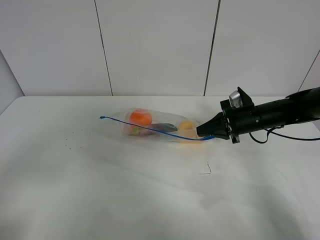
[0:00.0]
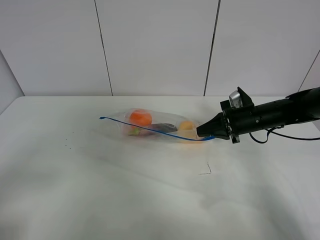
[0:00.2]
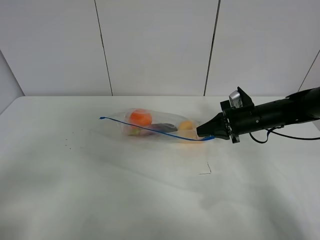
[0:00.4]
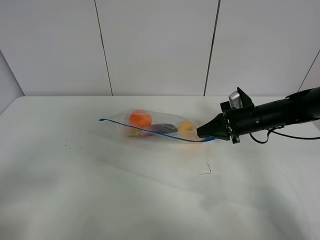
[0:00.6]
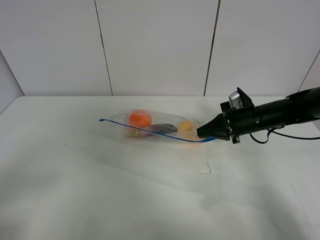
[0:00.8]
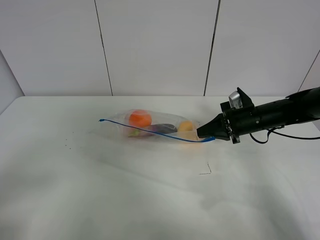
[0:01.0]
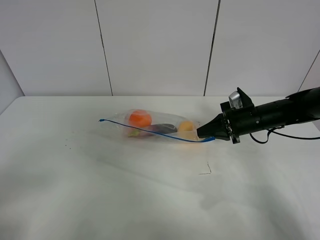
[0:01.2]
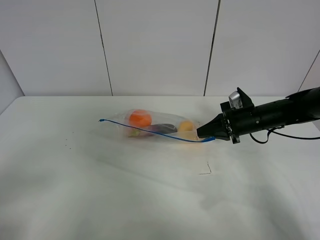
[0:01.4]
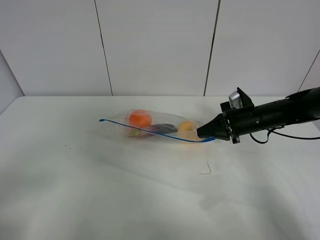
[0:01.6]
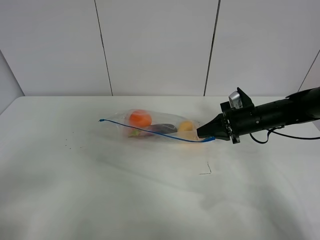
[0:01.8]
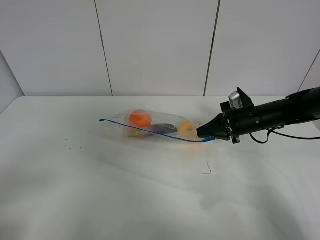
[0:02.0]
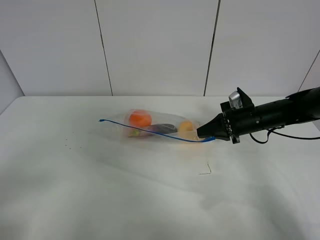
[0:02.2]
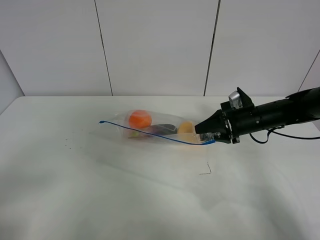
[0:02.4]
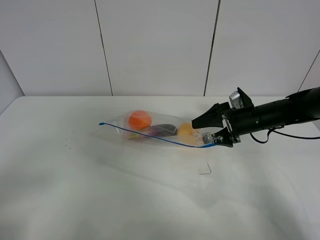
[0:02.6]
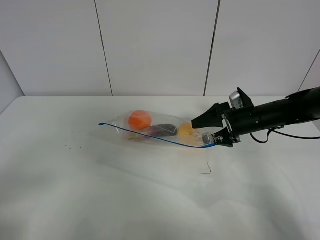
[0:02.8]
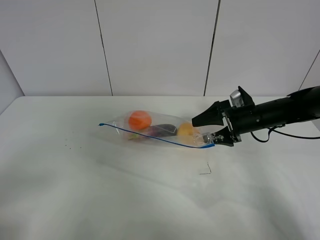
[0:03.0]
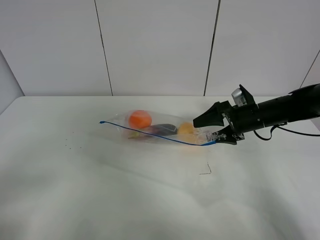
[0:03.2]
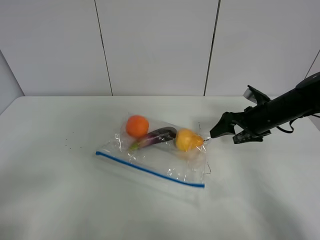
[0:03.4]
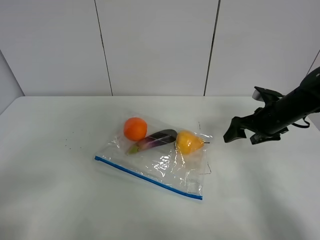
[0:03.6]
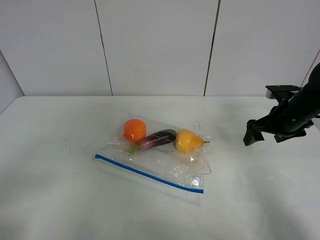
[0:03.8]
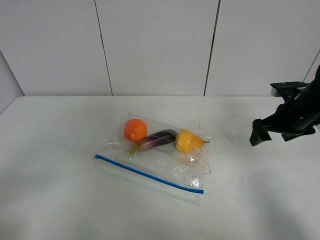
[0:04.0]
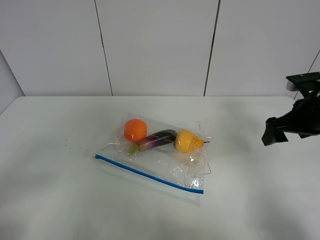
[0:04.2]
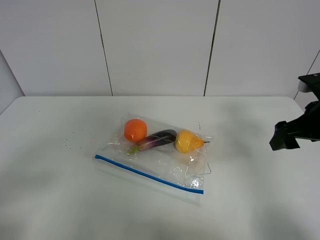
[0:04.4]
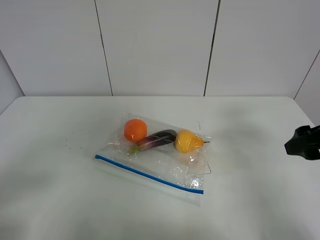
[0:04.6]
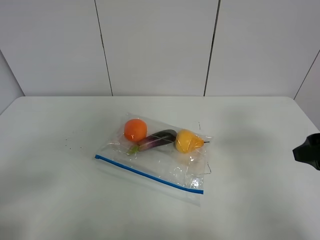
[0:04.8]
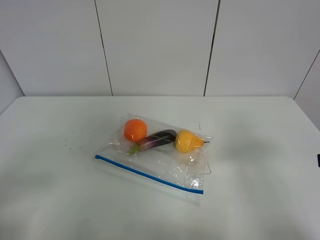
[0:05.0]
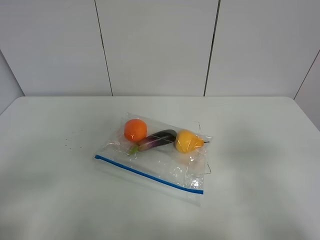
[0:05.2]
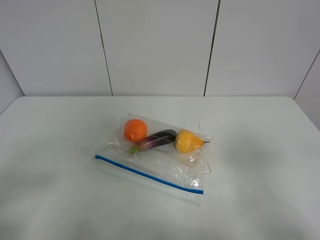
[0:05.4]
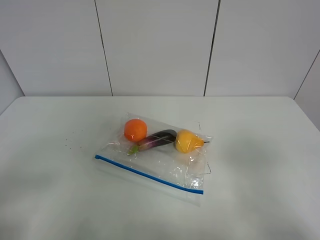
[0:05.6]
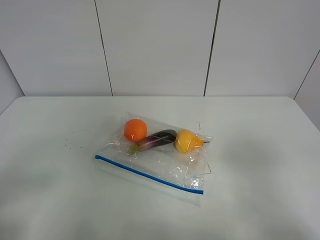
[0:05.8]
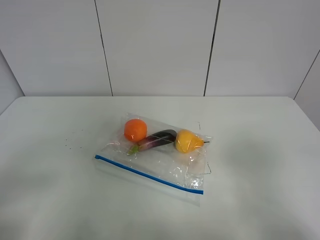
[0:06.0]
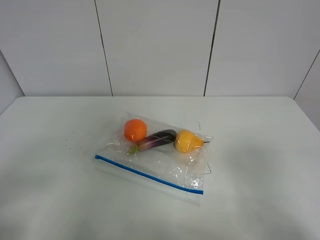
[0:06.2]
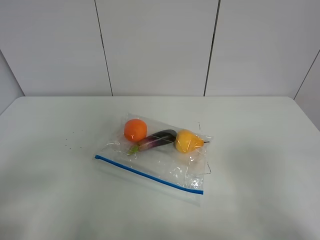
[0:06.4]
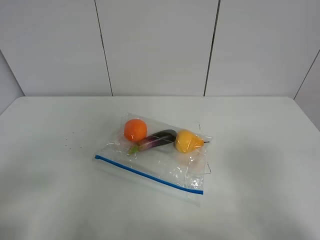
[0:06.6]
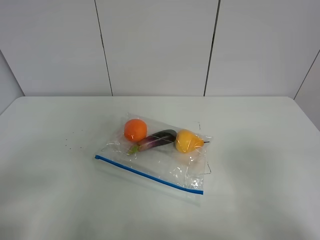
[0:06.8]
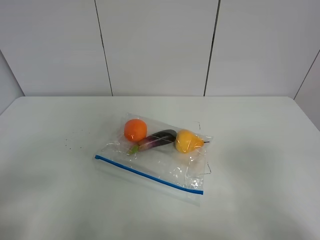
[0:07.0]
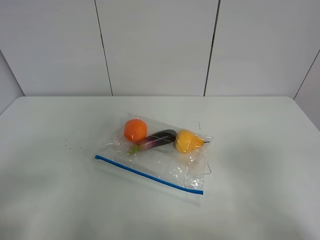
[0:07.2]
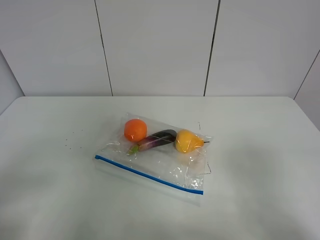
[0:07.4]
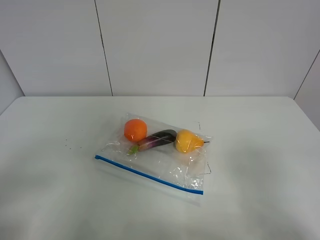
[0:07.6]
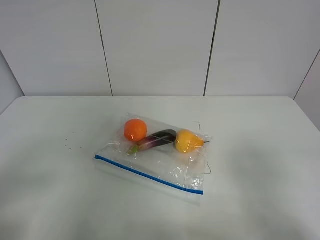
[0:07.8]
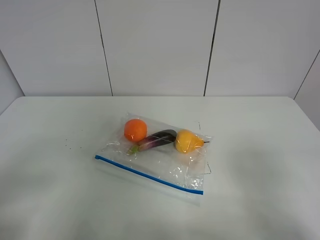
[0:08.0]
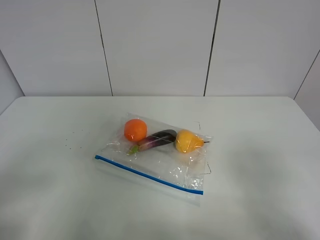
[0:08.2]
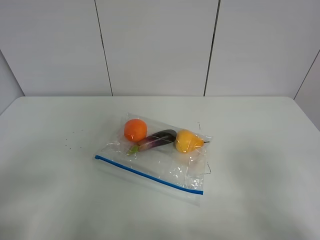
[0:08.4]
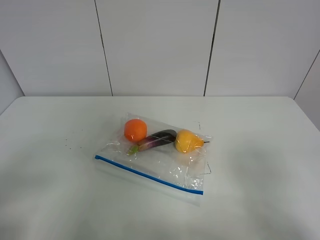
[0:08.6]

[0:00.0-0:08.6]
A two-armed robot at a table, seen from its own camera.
Step, 0:00.0 to 0:03.2: Place the fruit bag with right gripper.
0:00.0 to 0:01.4: The grippers move only a little.
0:01.4 to 0:02.8: The right gripper opens its fingers.
0:02.8 to 0:04.4: The right gripper goes about 15 cm backward, upward and to the right.
0:04.4 to 0:05.8: The right gripper goes roughly 20 cm backward.

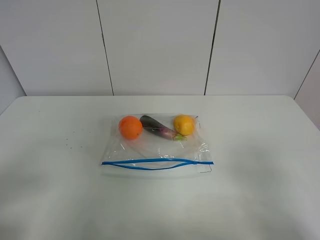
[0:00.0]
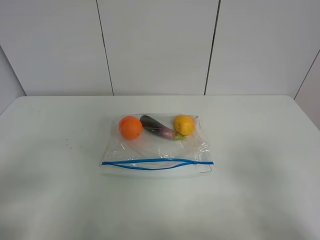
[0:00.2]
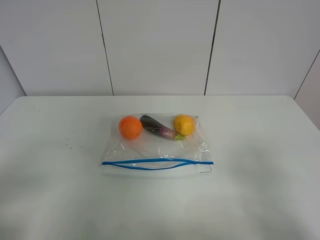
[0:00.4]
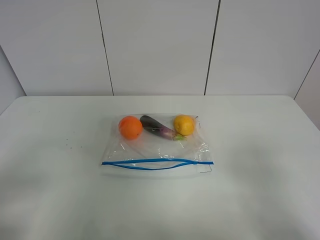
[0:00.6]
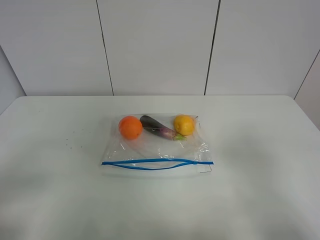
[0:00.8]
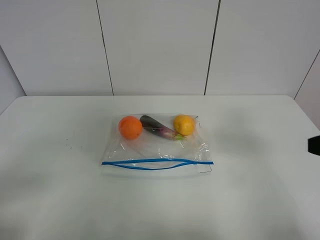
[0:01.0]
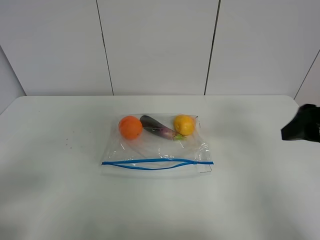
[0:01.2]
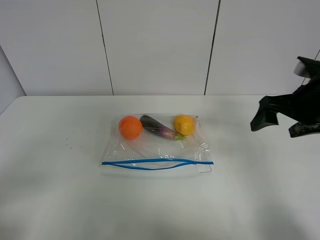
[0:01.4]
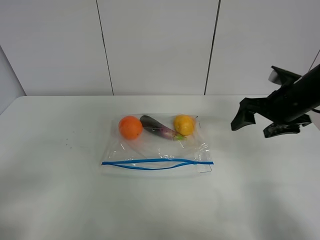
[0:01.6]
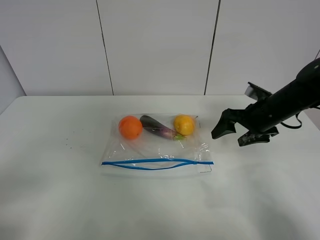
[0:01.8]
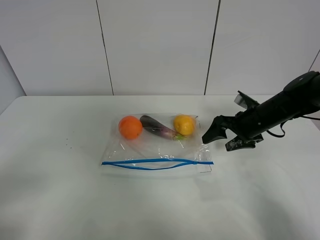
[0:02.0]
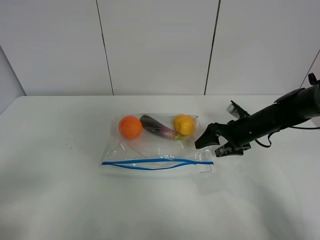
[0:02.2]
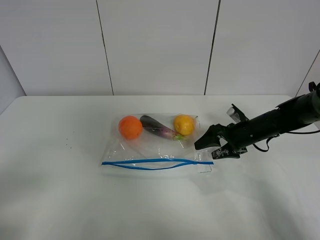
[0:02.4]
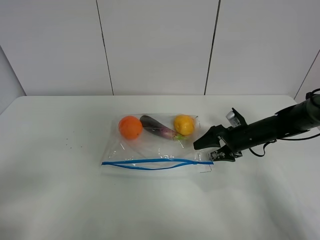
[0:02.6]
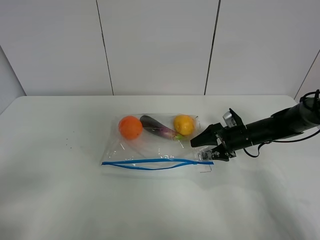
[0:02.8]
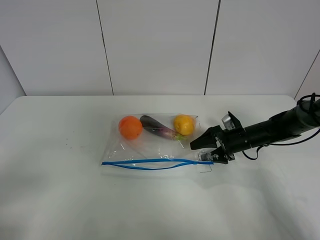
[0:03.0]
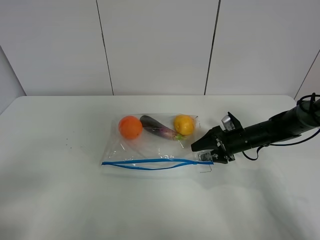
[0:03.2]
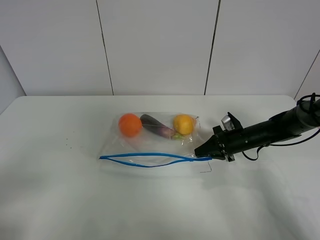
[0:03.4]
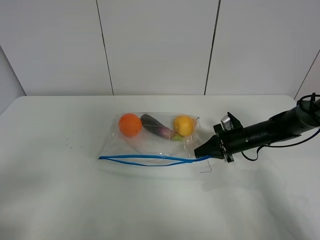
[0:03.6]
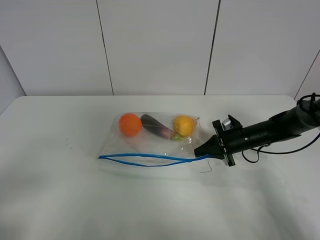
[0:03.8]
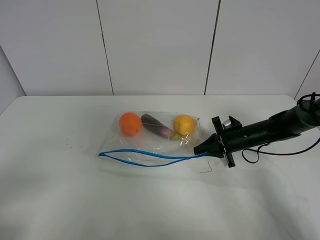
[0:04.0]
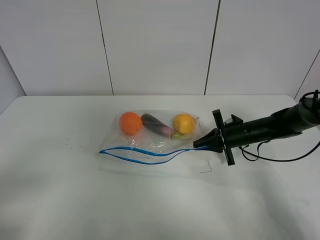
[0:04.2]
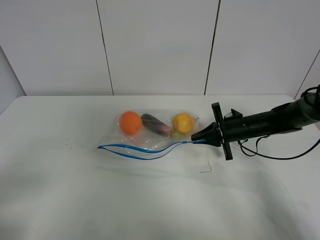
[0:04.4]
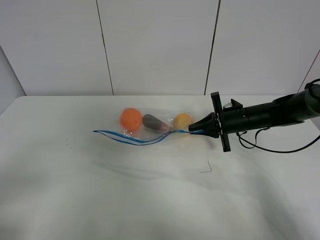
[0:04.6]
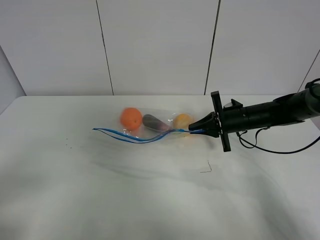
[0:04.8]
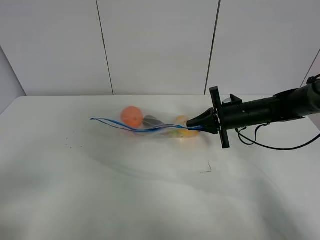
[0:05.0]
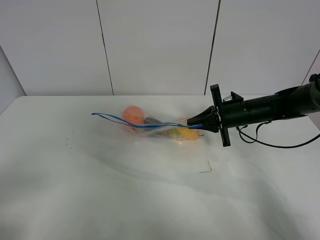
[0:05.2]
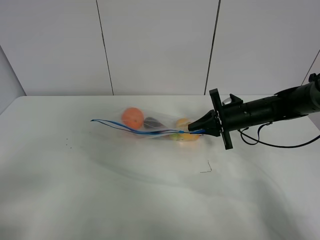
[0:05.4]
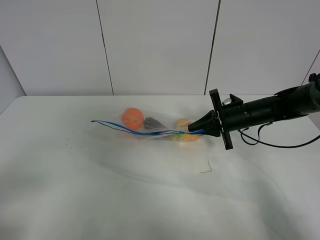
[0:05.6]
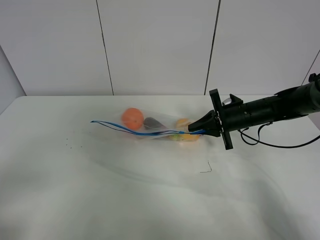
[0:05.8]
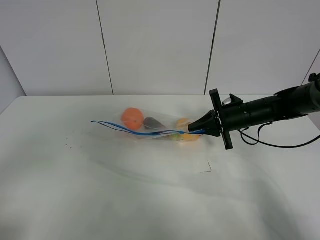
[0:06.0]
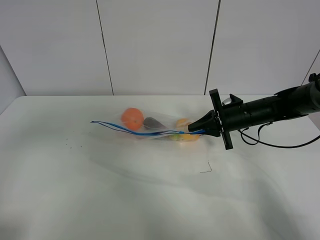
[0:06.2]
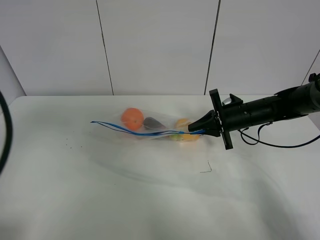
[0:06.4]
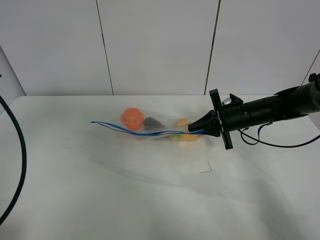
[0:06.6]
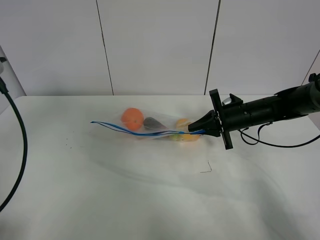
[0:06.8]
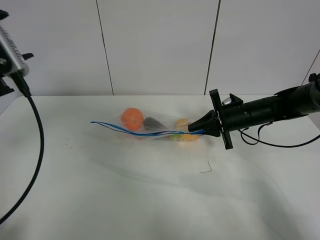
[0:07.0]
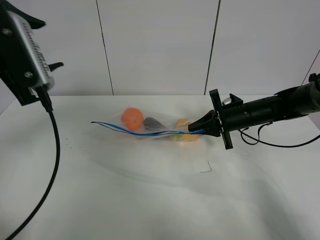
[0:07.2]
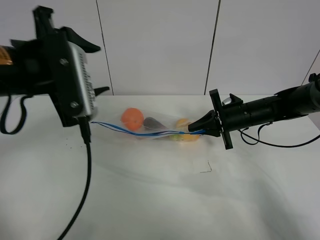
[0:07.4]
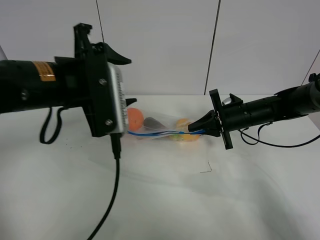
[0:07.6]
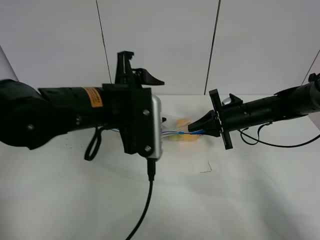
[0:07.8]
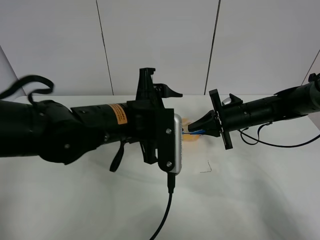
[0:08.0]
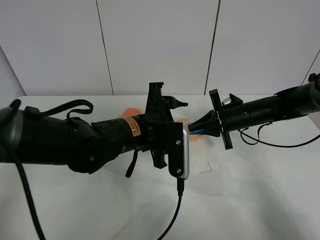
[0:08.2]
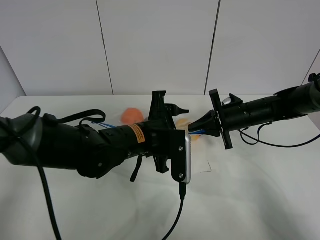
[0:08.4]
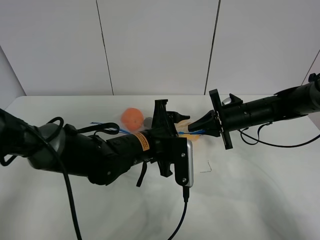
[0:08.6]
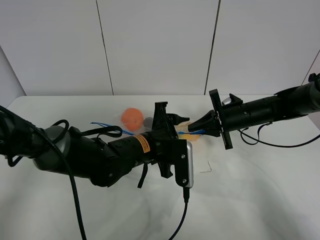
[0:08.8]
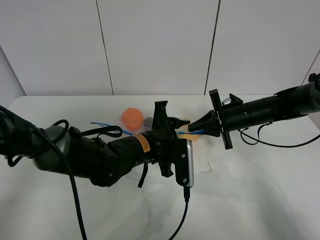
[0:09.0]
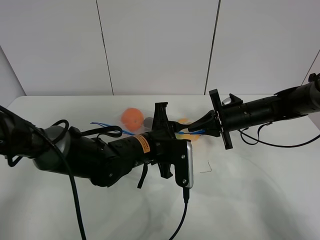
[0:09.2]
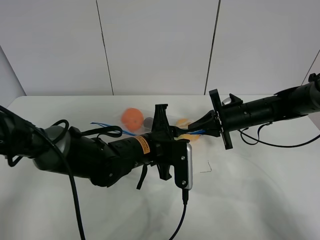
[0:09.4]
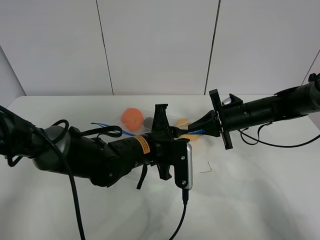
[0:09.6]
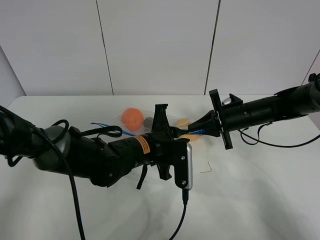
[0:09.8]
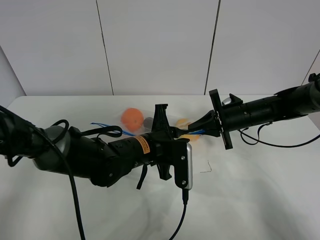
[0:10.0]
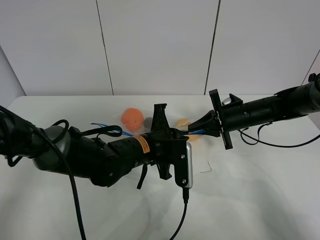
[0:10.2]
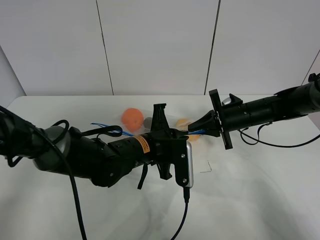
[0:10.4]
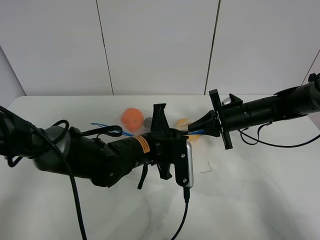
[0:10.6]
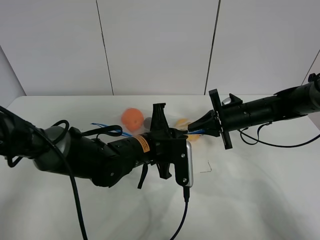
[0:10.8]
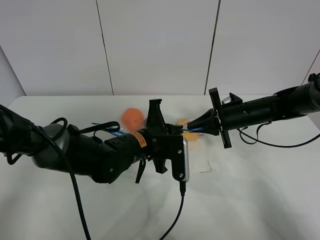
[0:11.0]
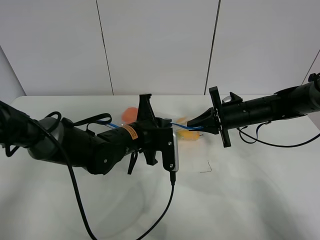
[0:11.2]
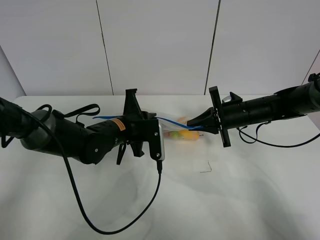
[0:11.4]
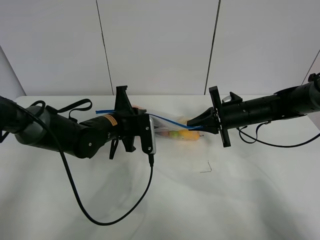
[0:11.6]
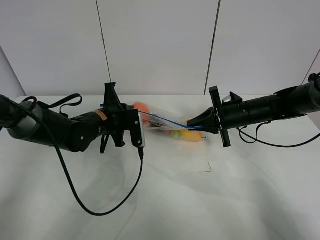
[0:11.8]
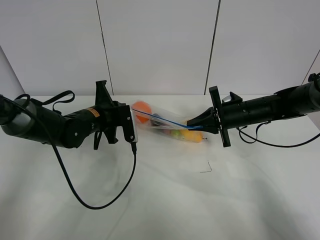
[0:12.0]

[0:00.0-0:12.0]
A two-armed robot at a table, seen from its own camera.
Step, 0:00.0 to 0:03.4: Grasp the fruit bag with right gripper.
Step, 0:03.6 to 0:04.8: Lift the fruit bag with your right gripper.
0:00.0 to 0:01.6: The right gripper is displaced forward by about 30 cm.
0:01.6 to 0:03.0: The right gripper travels downward by some 15 cm.
0:03.0 to 0:04.4: The right gripper closes up.
0:04.4 to 0:06.0: The grippers move only a little.
0:06.0 to 0:07.6: The left gripper is displaced forward and to the right by about 25 cm.
0:07.6 to 0:09.0: The left gripper travels downward and to the right by some 20 cm.
0:09.0 to 0:10.4: The left gripper closes its fingers.
0:10.4 to 0:12.0: The left gripper is displaced to the left and forward by about 15 cm.

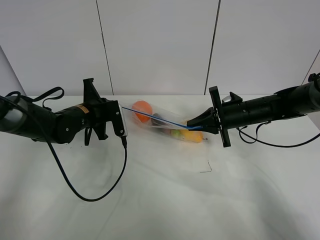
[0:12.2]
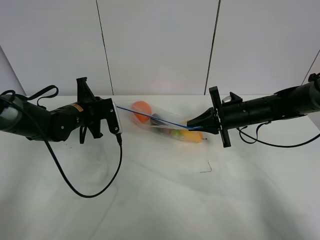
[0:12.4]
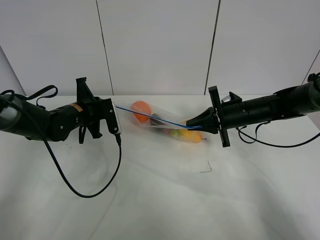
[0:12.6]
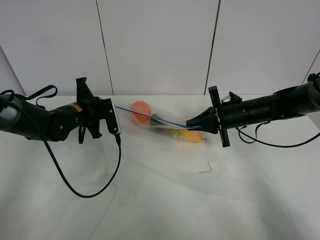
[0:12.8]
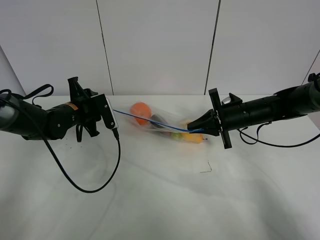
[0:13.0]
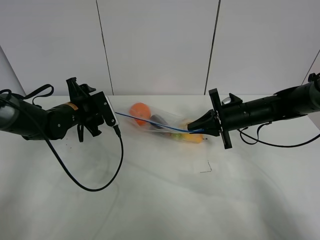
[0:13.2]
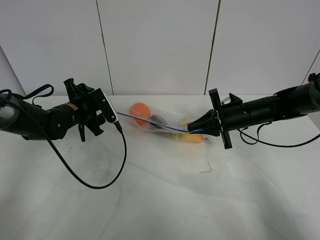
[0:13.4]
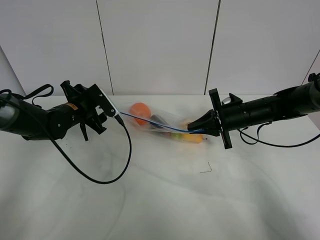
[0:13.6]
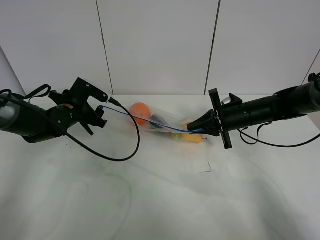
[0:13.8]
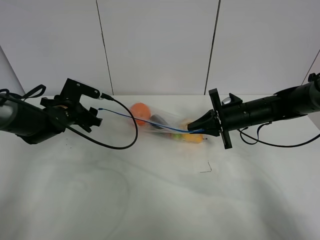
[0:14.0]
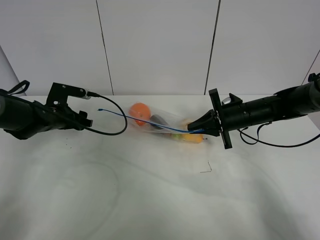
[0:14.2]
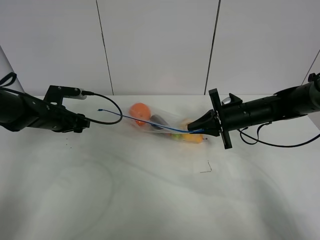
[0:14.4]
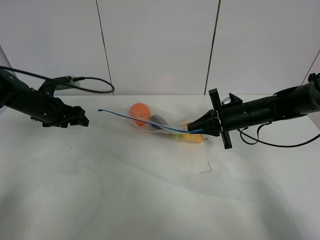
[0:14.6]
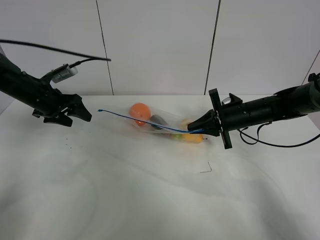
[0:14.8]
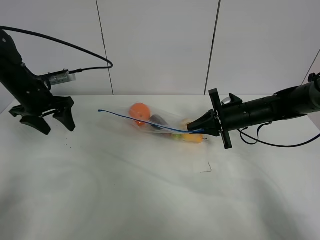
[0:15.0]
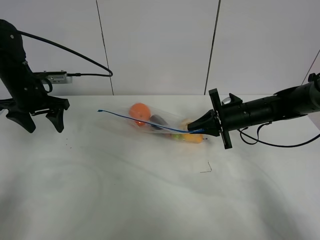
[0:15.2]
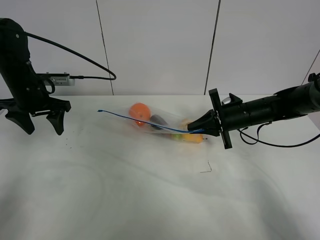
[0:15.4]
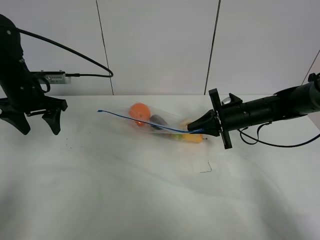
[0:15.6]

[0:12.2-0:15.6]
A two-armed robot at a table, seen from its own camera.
0:12.2 to 0:13.8: The left gripper opens its fingers.
0:13.8 to 0:15.6: The left gripper heads upward and to the left, covering about 10 cm.
